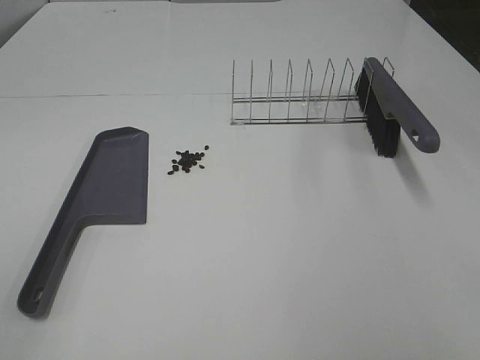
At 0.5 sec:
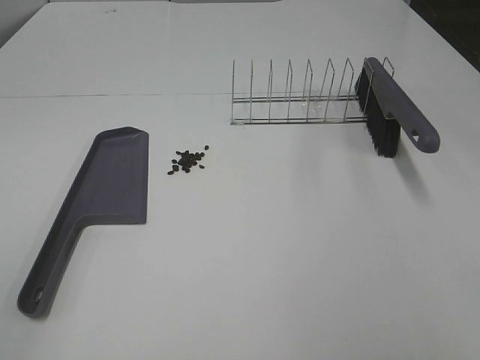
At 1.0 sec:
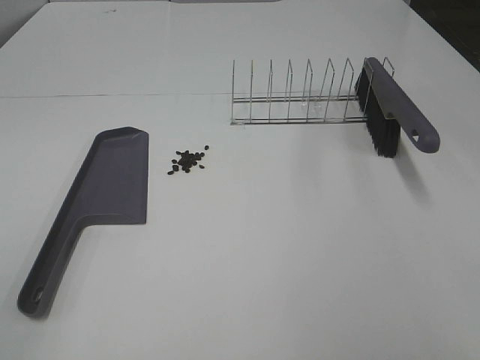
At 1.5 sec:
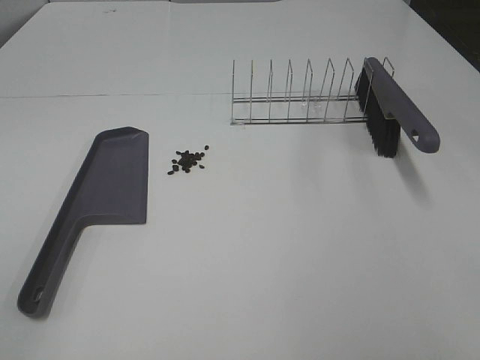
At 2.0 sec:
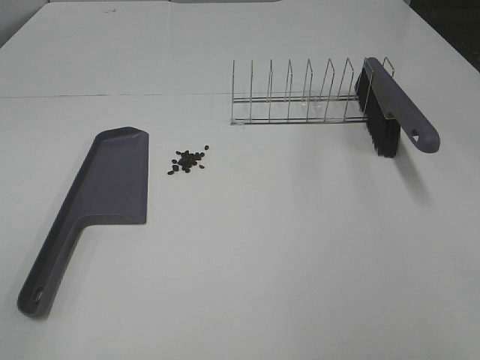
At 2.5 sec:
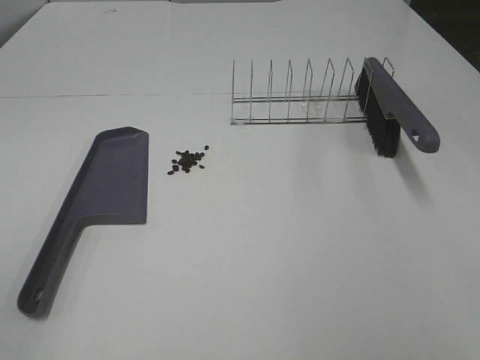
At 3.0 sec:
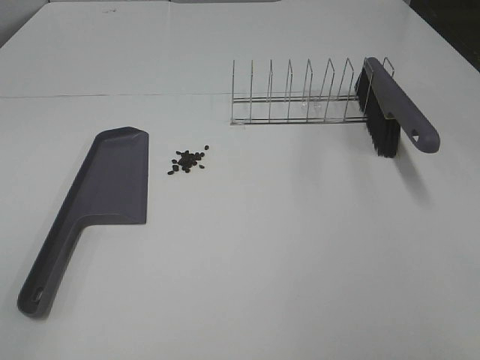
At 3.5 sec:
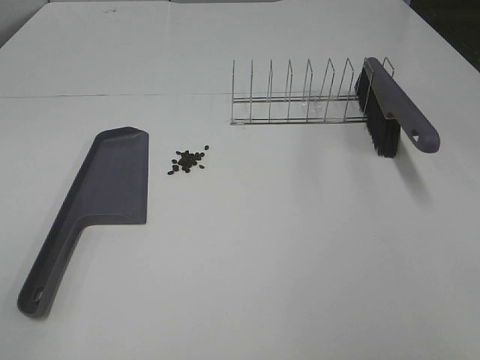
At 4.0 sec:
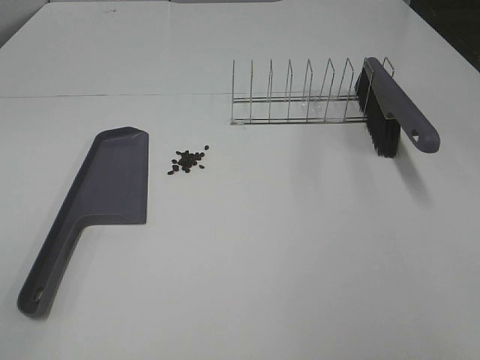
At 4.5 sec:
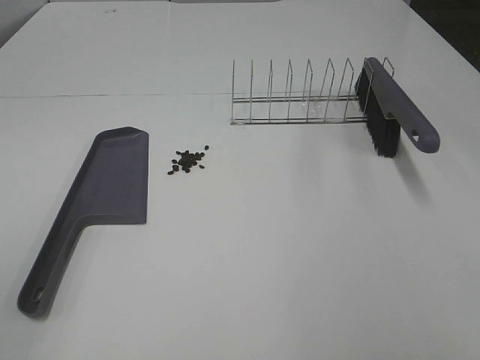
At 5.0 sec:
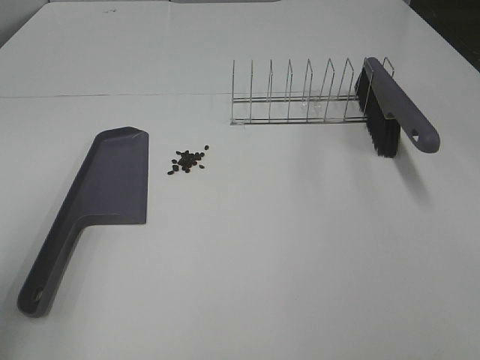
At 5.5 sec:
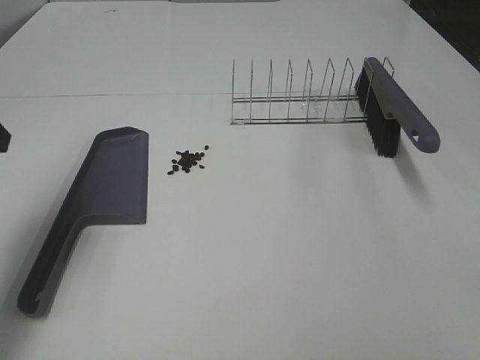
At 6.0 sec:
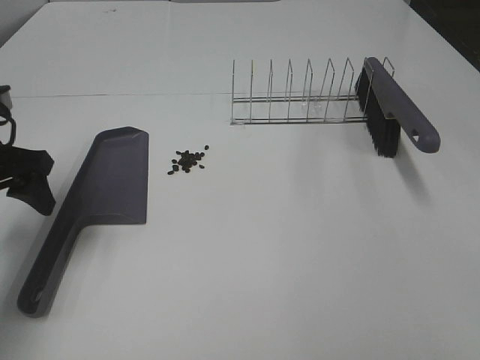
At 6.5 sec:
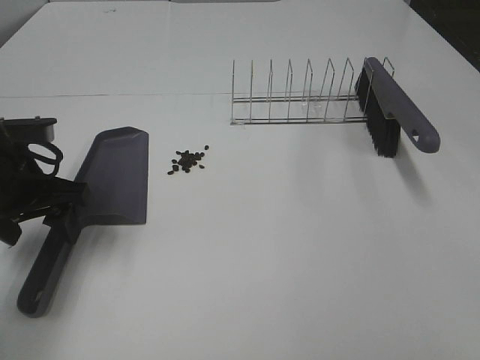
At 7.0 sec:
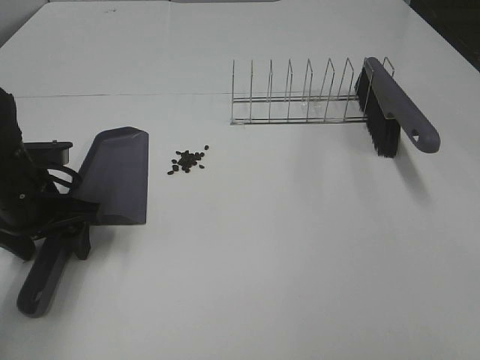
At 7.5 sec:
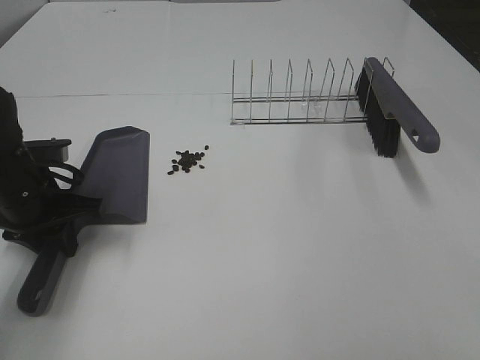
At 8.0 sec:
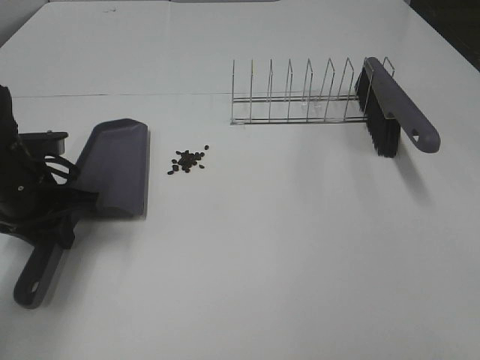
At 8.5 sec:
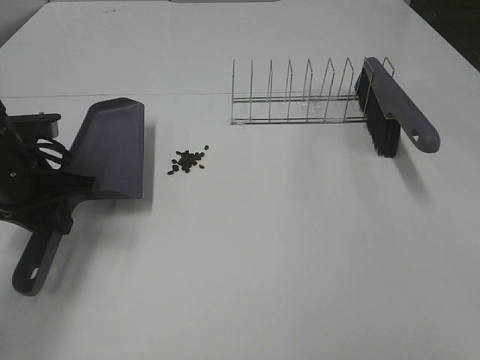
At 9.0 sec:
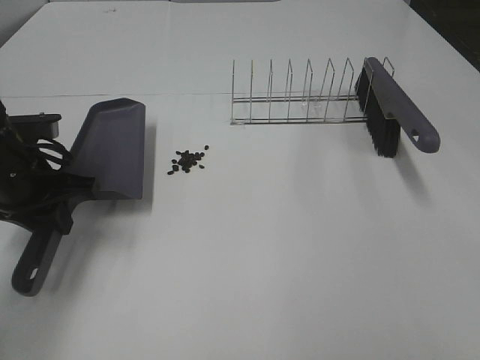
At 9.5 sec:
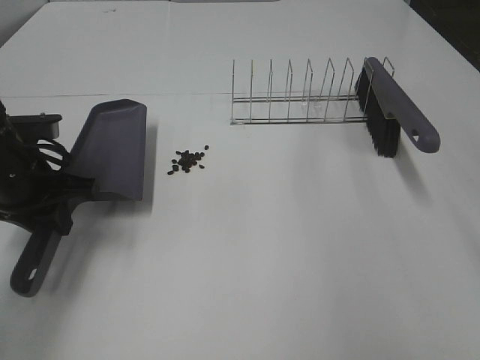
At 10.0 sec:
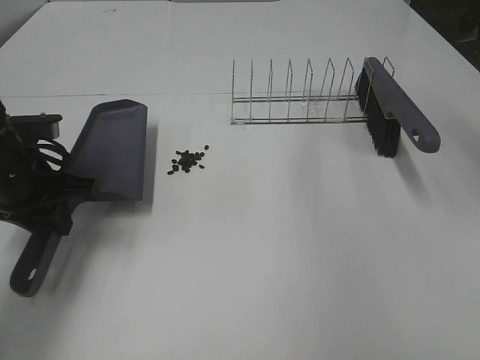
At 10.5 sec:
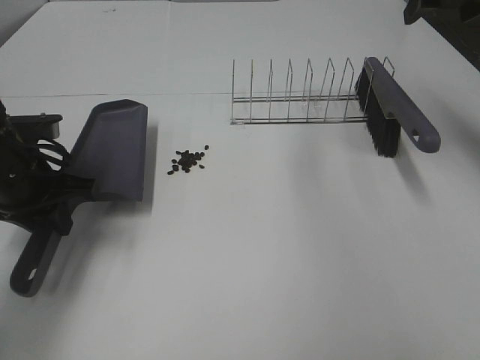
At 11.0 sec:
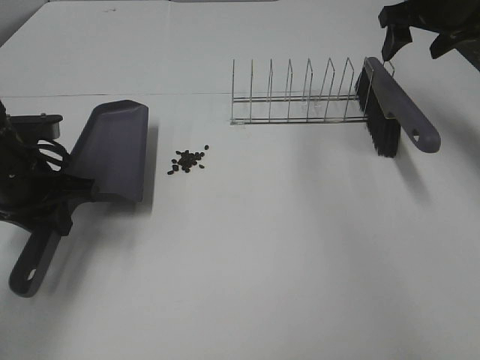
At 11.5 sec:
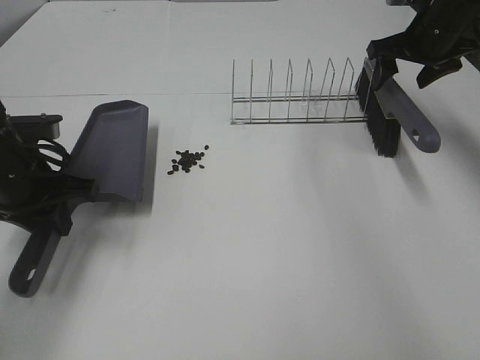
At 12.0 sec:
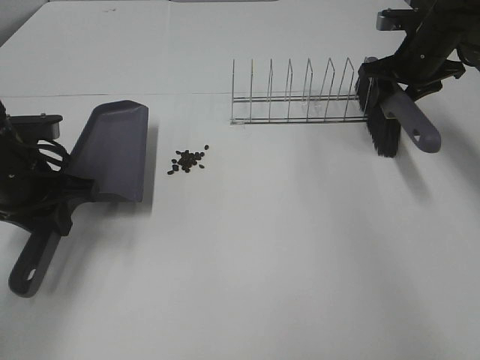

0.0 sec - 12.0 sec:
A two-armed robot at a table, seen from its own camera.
Task of the whole recording: Sweep Coffee Bean.
Step, 0.0 sec - 7.0 sec: Left hand: grab the dustpan.
0.0 sec - 4.0 sec: The two grippers keep their place.
4.0 sec - 6.0 sec: The left gripper goes about 30 cm forward.
6.0 sec - 8.0 sec: The left gripper is displaced downward by approximately 5 cm, and closes.
10.0 sec - 12.0 sec: The right gripper is displaced forward and downward by approximately 25 cm, and closes.

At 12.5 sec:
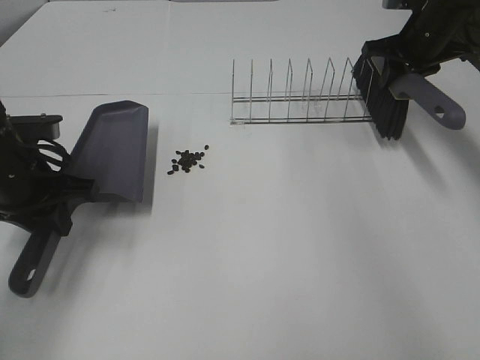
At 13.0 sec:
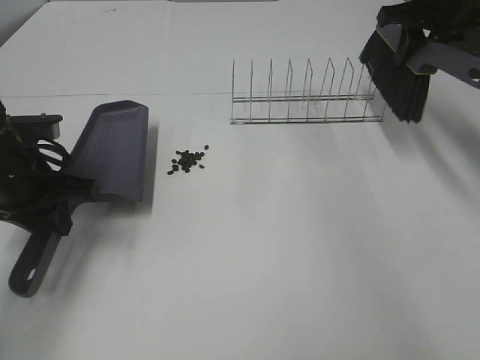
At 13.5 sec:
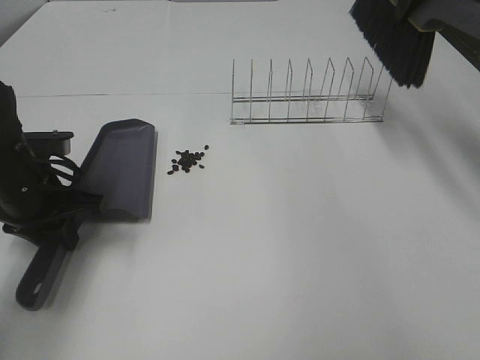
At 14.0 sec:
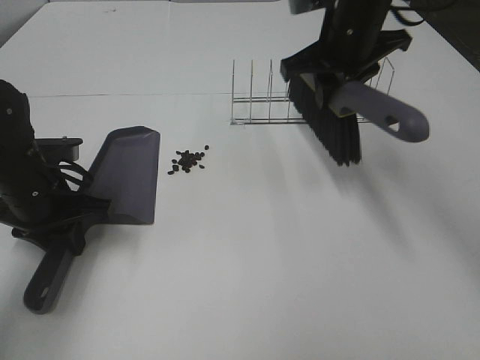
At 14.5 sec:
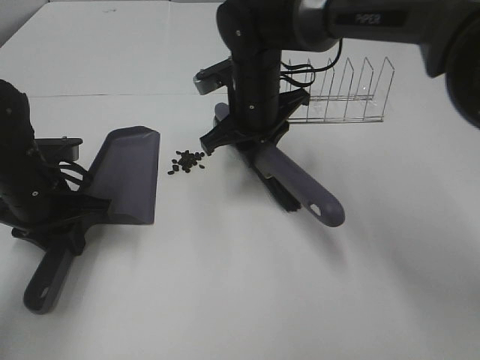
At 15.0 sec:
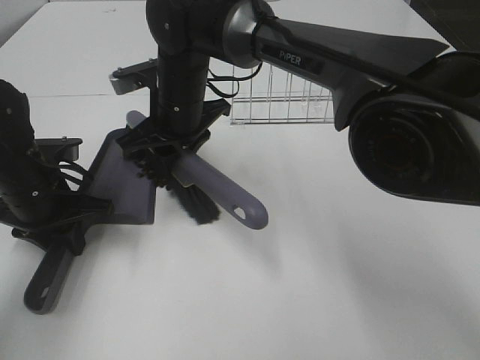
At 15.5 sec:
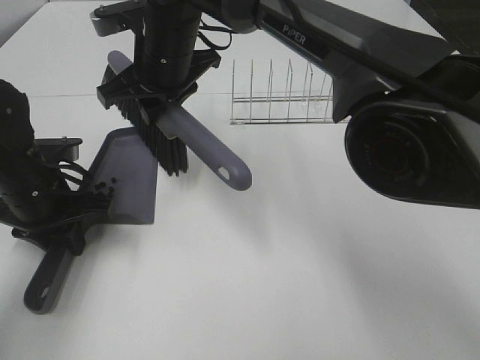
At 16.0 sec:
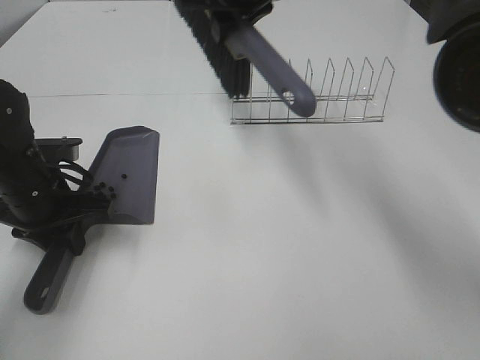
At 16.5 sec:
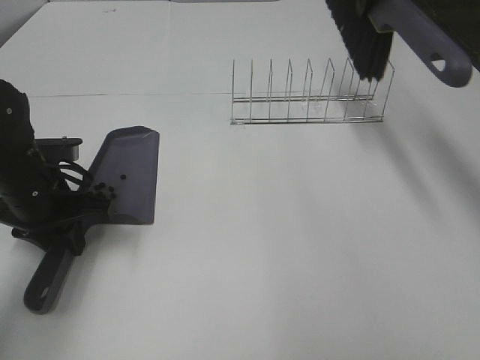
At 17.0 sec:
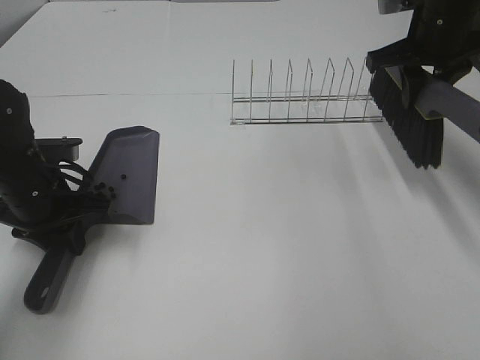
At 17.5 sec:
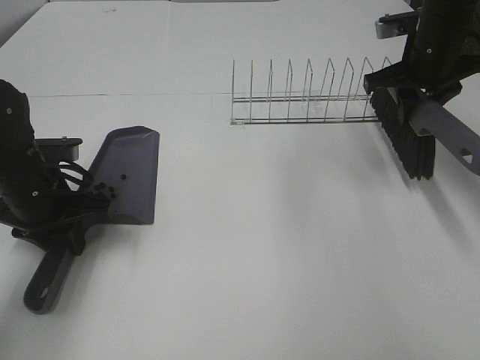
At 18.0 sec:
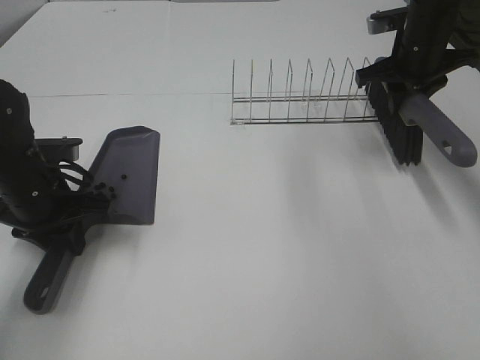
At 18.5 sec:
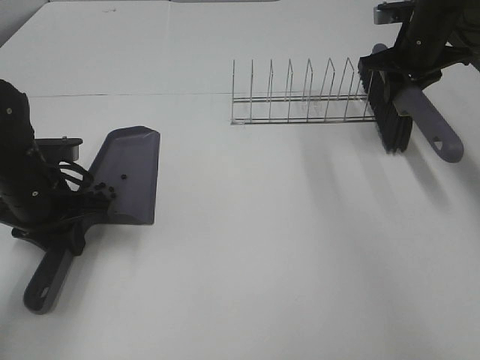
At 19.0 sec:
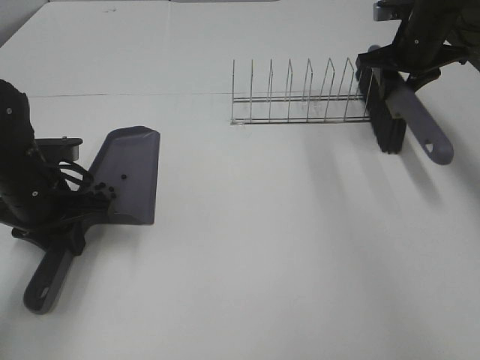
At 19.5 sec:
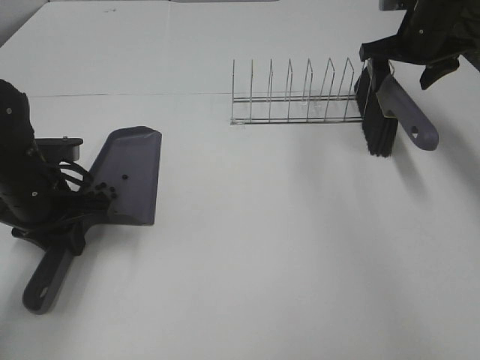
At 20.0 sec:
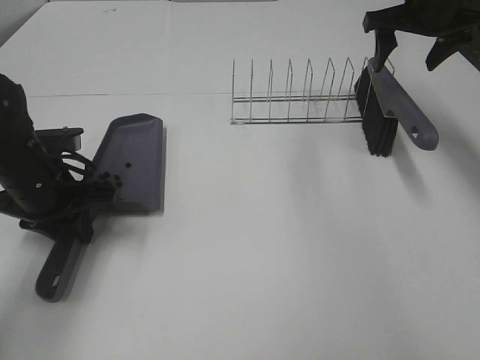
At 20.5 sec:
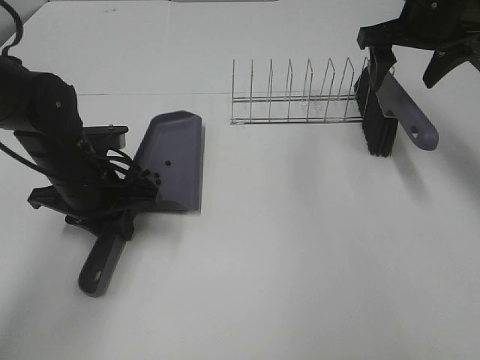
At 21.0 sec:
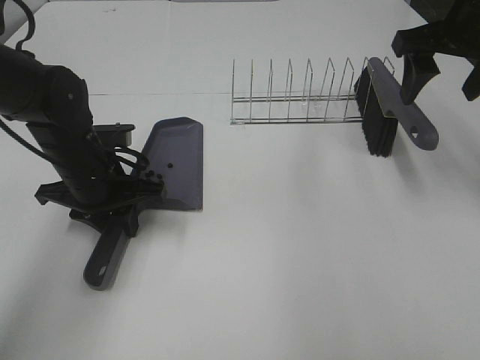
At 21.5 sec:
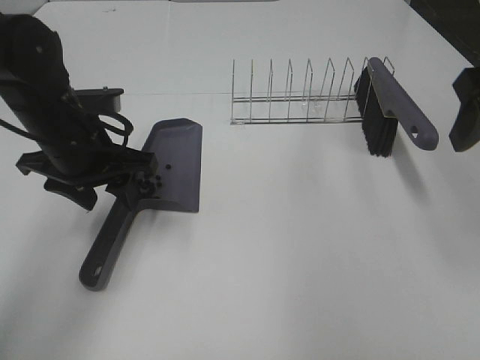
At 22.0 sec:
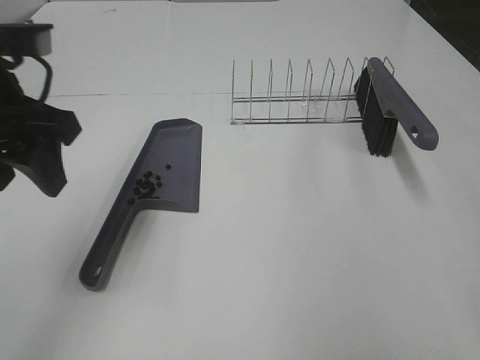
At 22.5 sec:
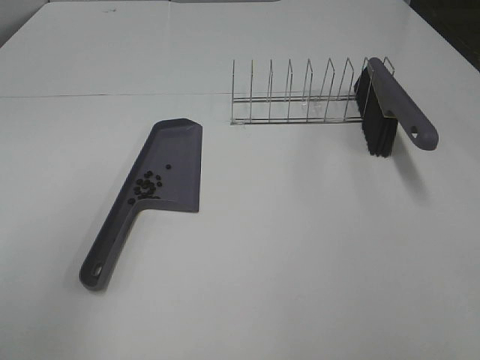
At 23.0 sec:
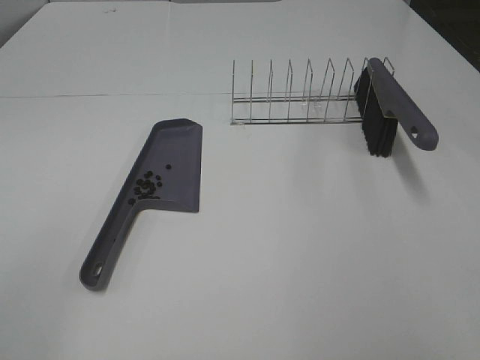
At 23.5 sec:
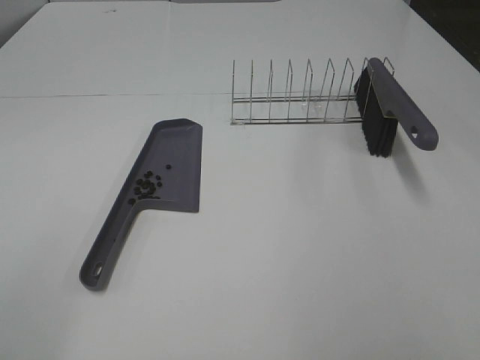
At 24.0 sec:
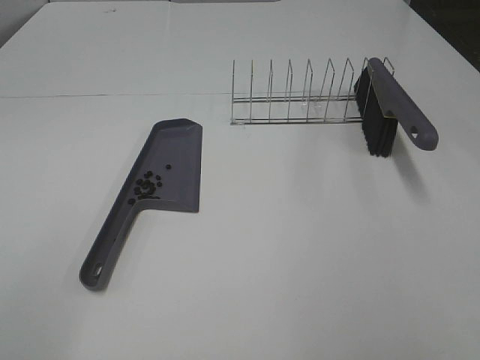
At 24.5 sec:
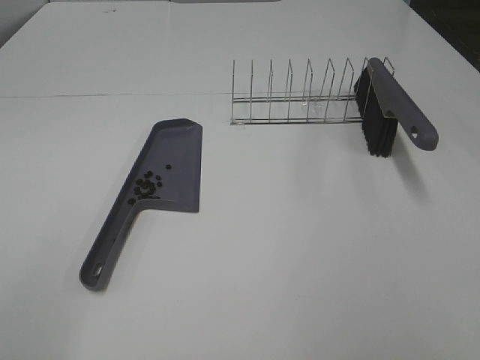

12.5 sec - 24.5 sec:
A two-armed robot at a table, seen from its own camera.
Task of the whole recording: Sweep Coffee Bean.
Step, 12.5 sec - 15.0 sec: Right hand:sweep the coffee beans into the dustpan.
Step, 15.5 sec - 19.0 sec: Right hand:place the broom on the rack.
Step, 19.5 sec - 21.0 sec: Left hand:place the dustpan on the table.
12.5 sec - 14.5 sec: The right gripper shifts some 25 cm to the left.
14.5 sec - 16.5 sec: The right gripper goes about 25 cm to the right and upward.
16.5 sec - 18.5 sec: The right gripper is displaced downward and to the right by about 15 cm.
18.5 sec - 20.5 sec: The left gripper is displaced to the right by some 5 cm. Meanwhile the right gripper is displaced upward and backward by approximately 10 cm, and opens.
20.5 sec - 22.5 sec: The right gripper heads backward, covering some 40 cm. Meanwhile the left gripper moves backward, upward and to the left, some 30 cm, and opens.

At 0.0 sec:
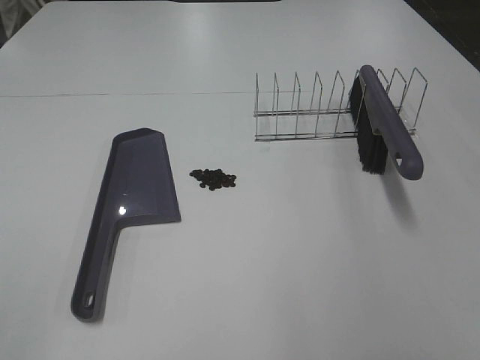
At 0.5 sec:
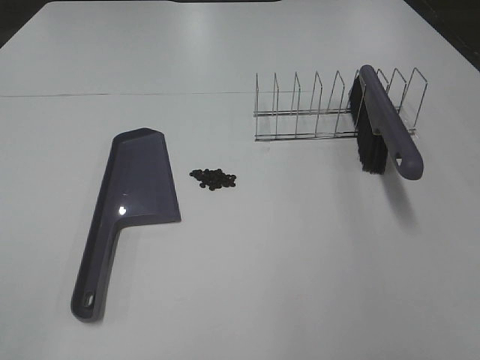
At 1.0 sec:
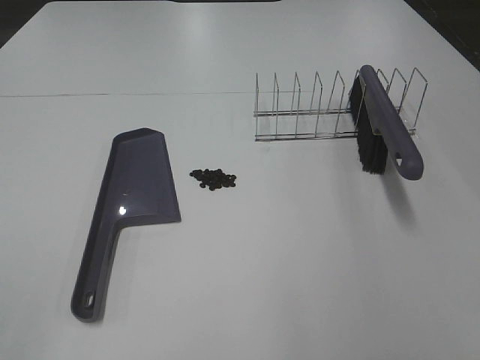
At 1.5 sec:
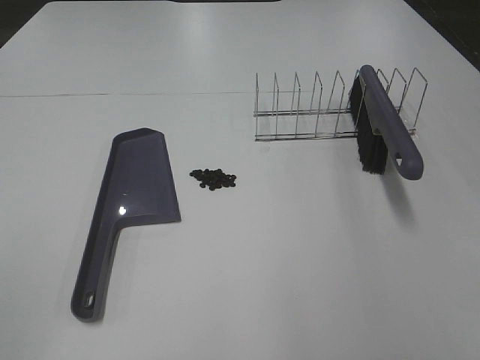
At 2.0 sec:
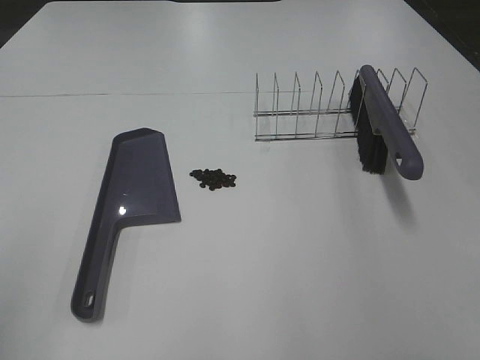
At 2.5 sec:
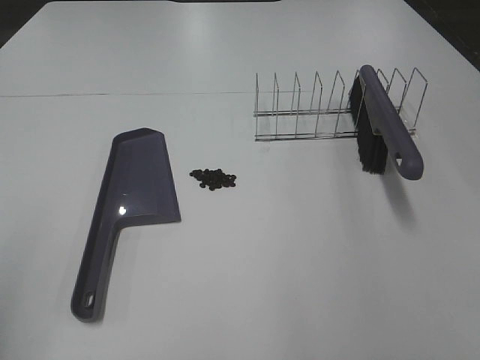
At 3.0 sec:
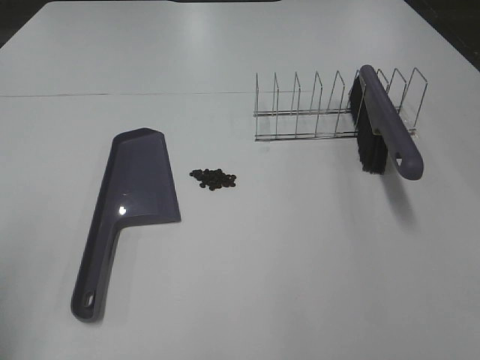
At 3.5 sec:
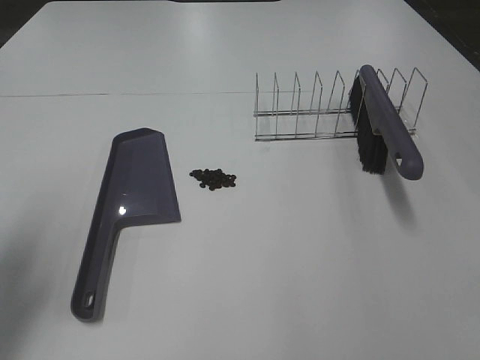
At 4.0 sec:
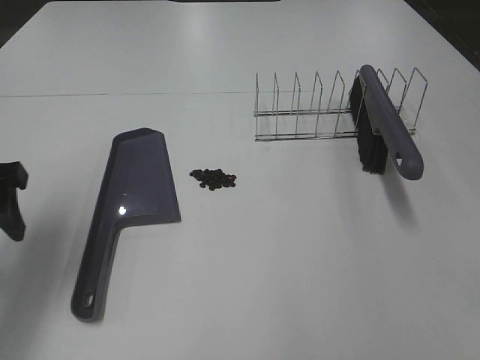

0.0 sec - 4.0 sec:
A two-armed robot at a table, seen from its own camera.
Task of the whole recording: Sweep Coffee Bean.
2.0 sec - 4.0 sec: The left gripper is displaced forward and downward by approximately 20 cm.
